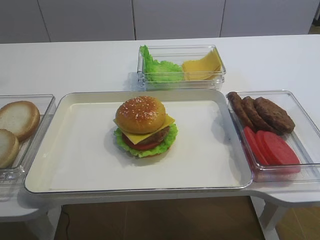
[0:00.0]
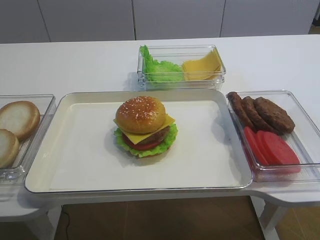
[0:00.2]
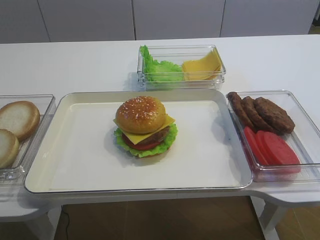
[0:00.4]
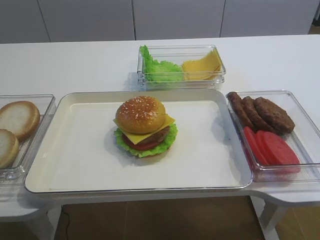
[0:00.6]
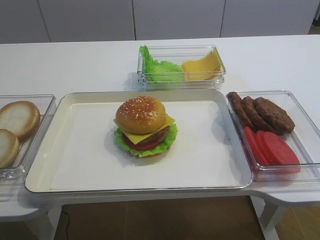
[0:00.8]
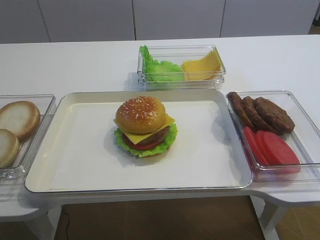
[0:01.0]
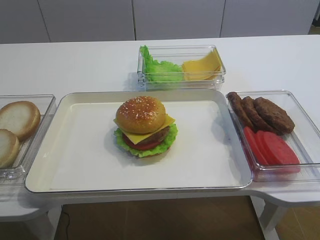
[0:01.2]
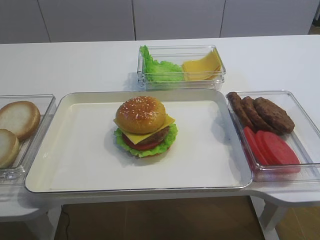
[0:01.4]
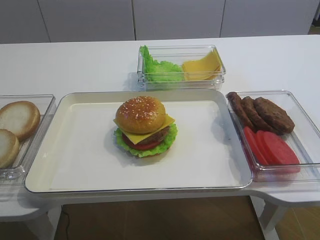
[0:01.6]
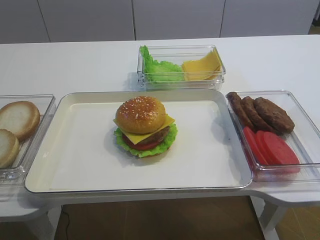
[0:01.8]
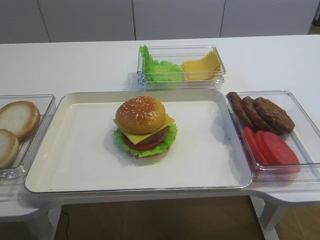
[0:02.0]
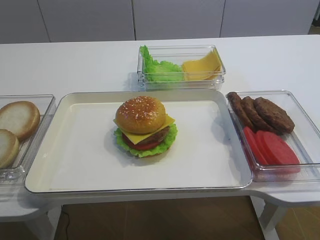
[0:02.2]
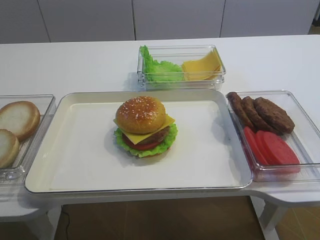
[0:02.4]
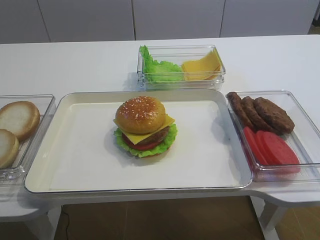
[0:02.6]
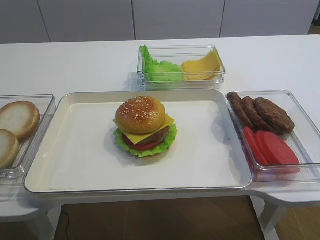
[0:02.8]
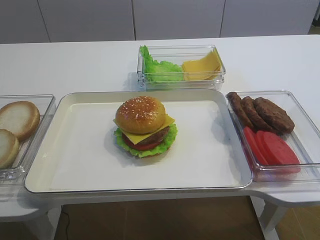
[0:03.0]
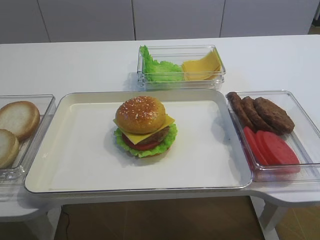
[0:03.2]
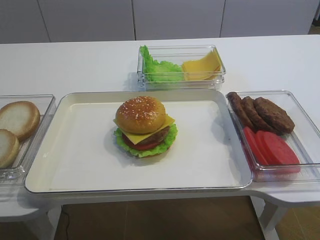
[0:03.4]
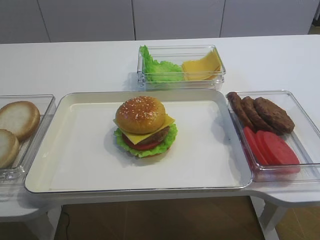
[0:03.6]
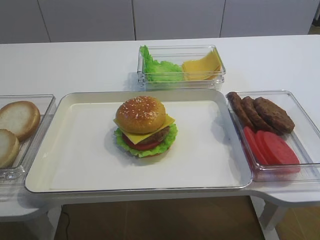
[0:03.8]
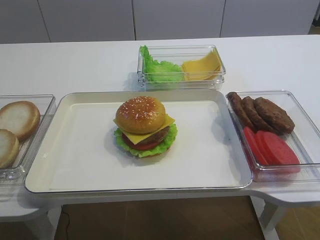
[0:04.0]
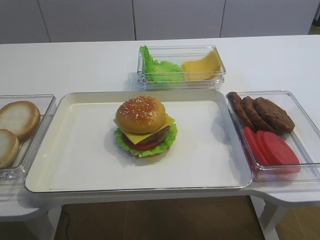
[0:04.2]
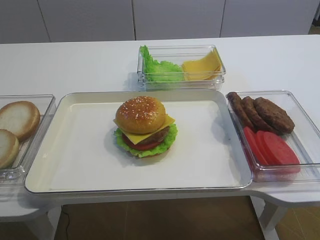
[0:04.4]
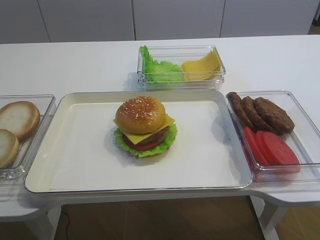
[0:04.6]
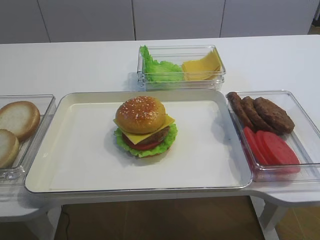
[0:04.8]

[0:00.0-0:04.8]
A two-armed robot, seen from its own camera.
0:03.2 to 0:04.8: Both grippers stay put.

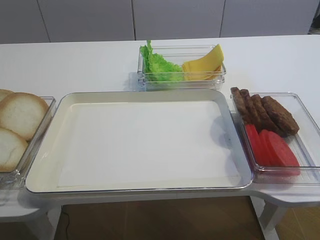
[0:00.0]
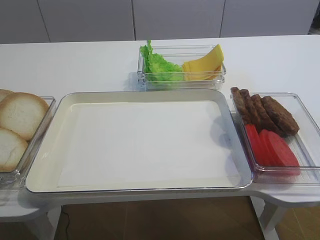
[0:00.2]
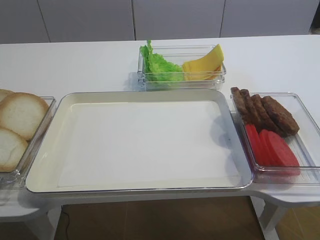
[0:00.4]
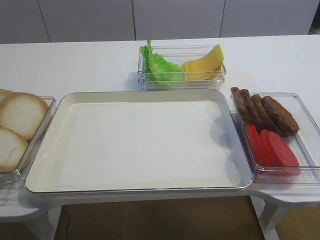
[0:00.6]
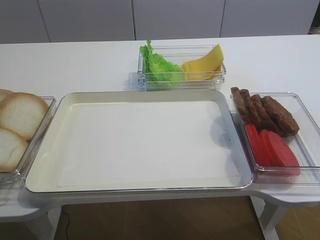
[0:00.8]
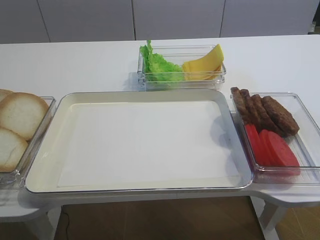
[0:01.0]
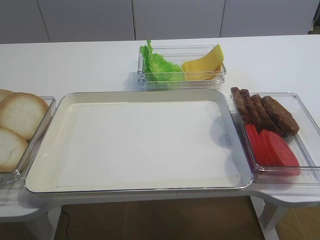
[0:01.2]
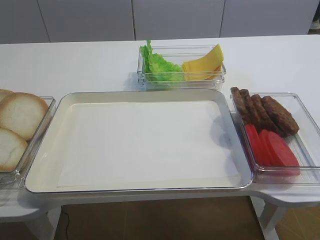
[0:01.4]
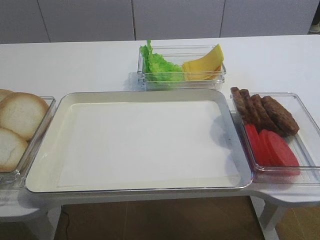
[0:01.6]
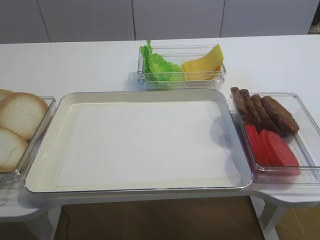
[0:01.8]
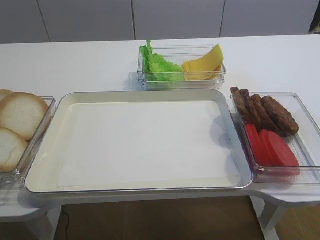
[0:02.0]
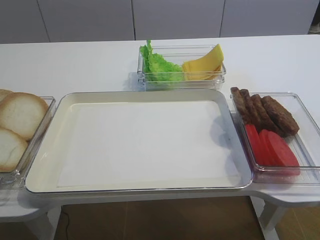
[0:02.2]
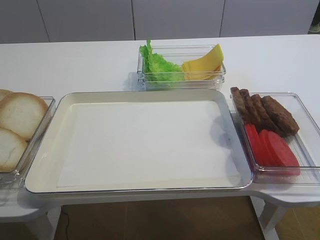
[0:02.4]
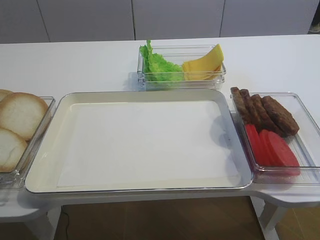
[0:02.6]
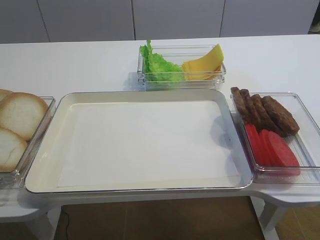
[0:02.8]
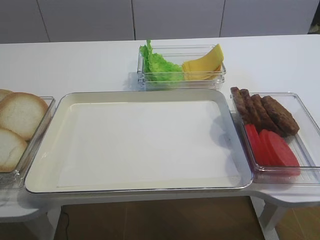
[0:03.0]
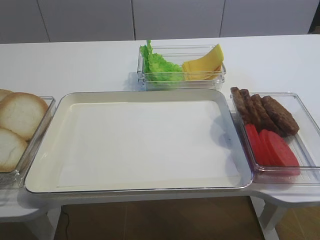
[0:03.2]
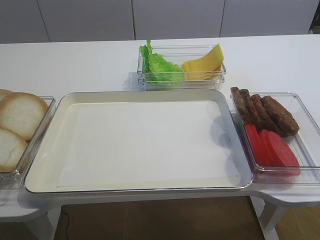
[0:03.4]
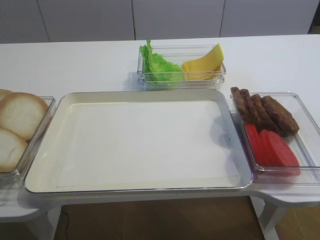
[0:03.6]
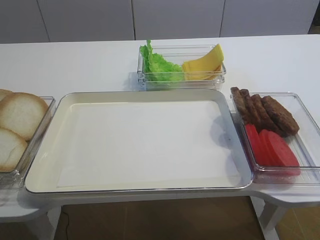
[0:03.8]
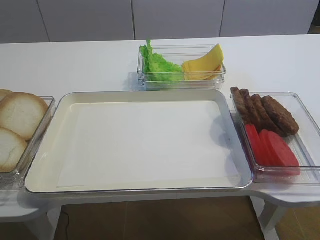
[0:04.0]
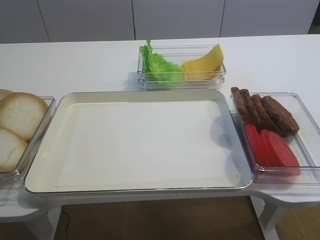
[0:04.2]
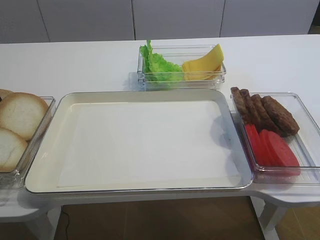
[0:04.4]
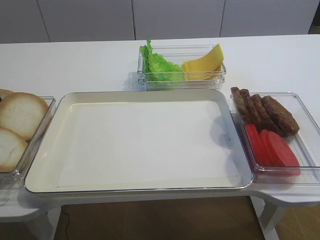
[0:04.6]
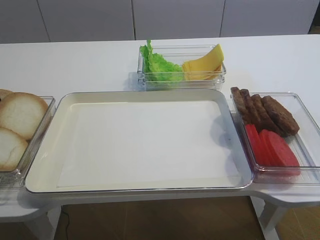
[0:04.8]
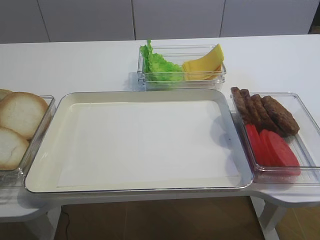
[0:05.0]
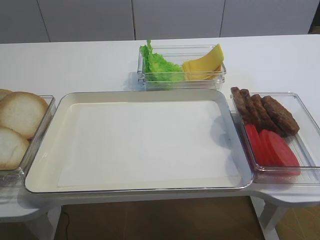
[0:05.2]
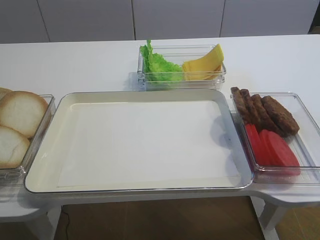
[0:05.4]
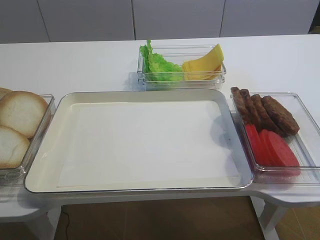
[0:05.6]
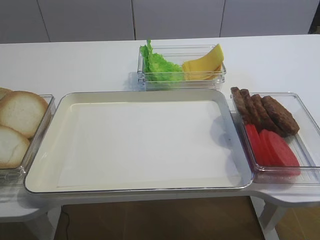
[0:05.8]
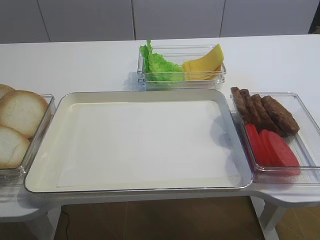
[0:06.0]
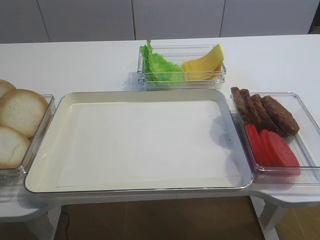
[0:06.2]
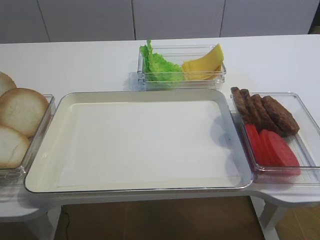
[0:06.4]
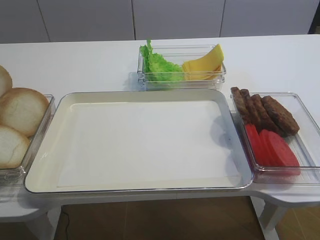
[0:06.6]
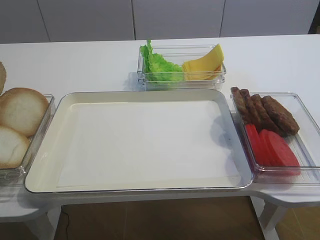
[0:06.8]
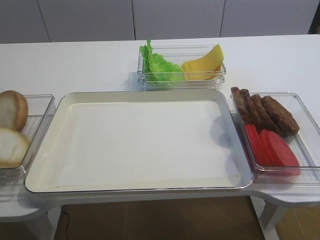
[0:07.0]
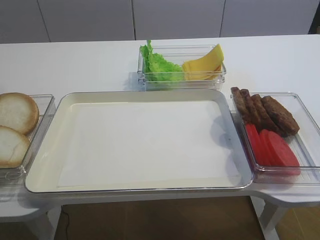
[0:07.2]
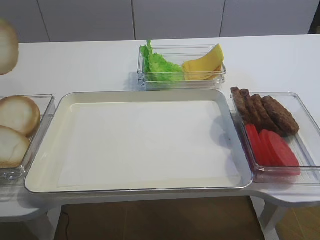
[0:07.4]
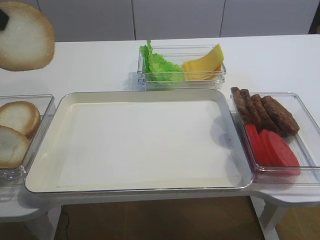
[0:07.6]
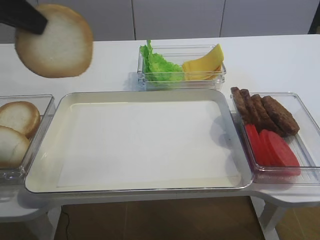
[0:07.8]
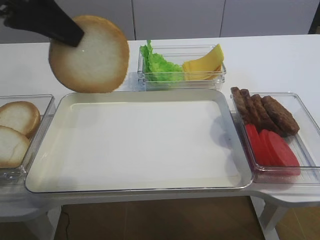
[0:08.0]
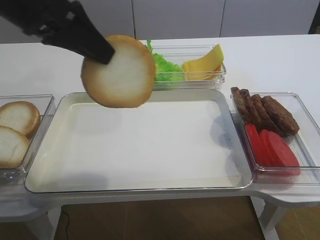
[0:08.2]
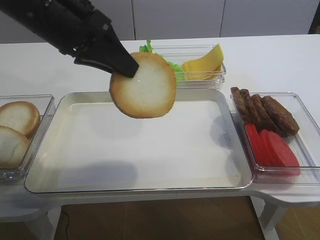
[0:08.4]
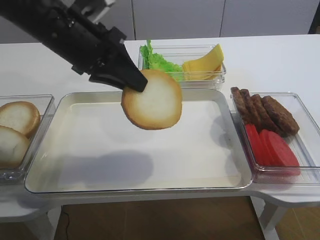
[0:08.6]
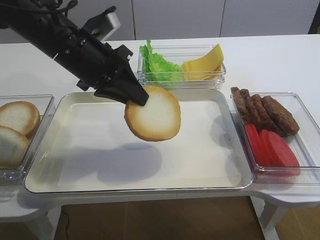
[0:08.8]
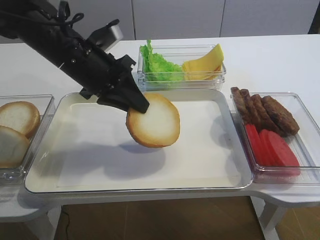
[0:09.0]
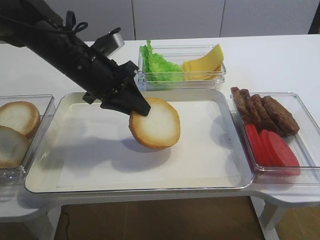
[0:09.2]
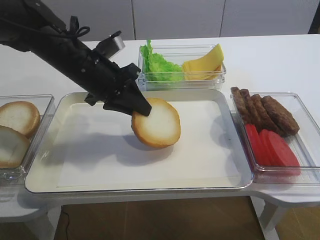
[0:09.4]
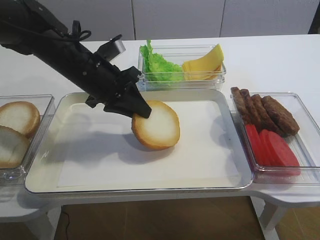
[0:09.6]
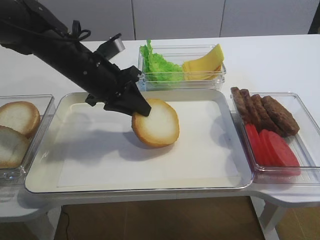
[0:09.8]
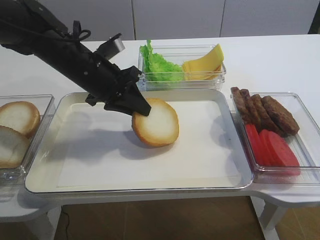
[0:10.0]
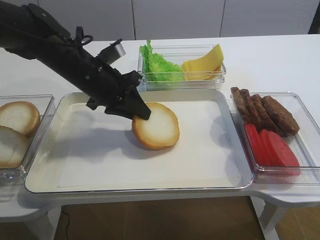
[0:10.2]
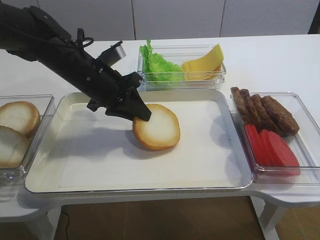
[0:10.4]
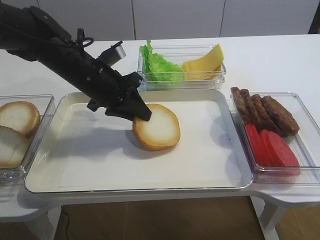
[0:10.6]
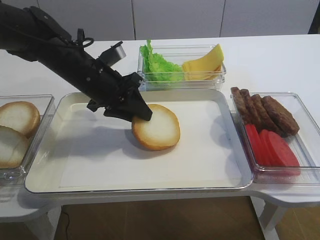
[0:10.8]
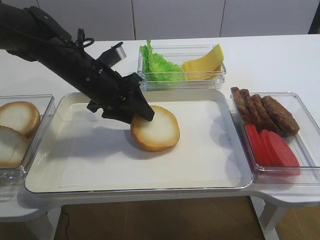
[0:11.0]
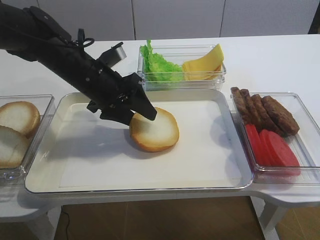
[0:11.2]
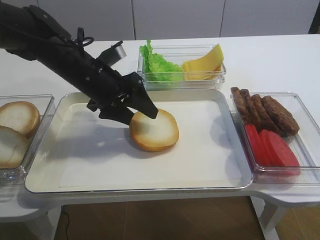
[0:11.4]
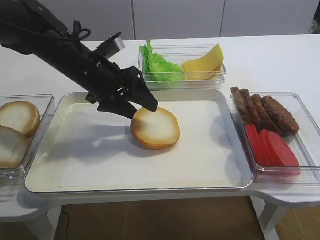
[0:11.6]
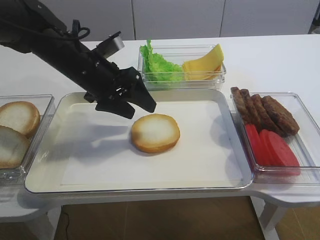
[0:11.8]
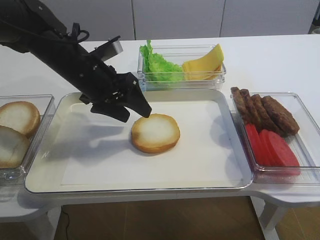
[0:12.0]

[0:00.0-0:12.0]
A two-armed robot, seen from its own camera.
Step, 0:00.0 to 0:07.4: Pick up the bread slice with the left gripper.
Step, 0:07.8 to 0:11.8: Place the bread slice on the tray with the left gripper.
0:04.4 to 0:06.0: The left gripper closes its fingers.
0:06.0 to 0:07.6: The left gripper heads upward, backward and to the right, covering some 15 cm.
0:07.6 to 0:09.0: The left gripper shifts roughly 20 cm to the right, downward and forward.
0:09.0 to 0:10.4: The left gripper changes place by approximately 5 cm.
0:10.4 to 0:12.0: The left gripper opens up.

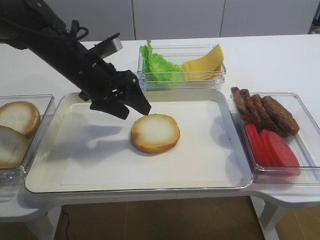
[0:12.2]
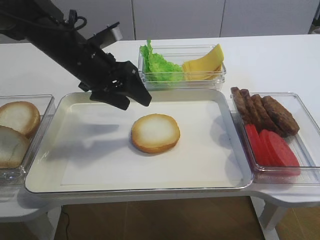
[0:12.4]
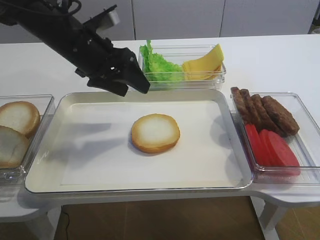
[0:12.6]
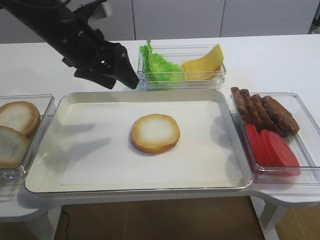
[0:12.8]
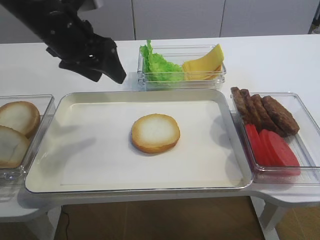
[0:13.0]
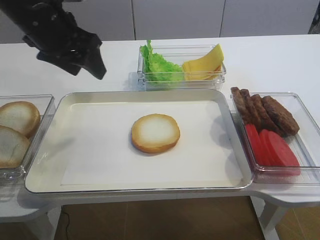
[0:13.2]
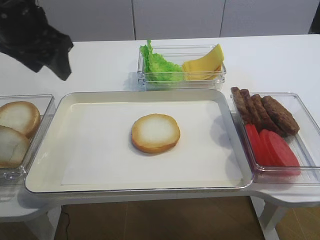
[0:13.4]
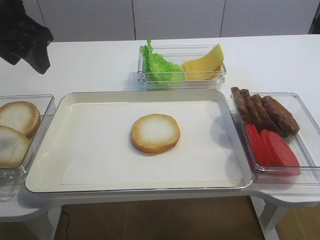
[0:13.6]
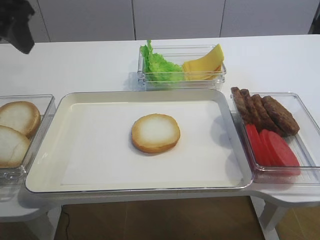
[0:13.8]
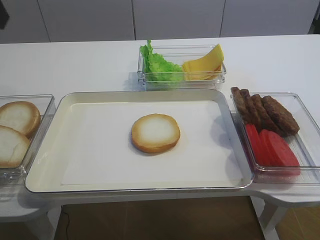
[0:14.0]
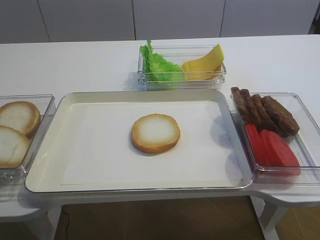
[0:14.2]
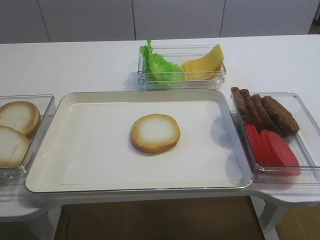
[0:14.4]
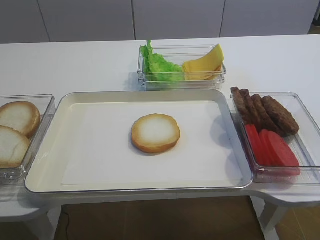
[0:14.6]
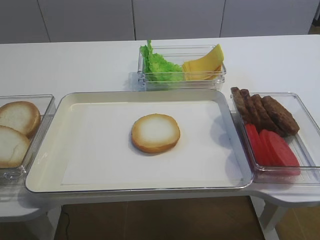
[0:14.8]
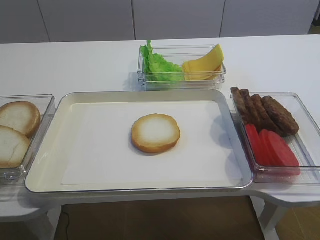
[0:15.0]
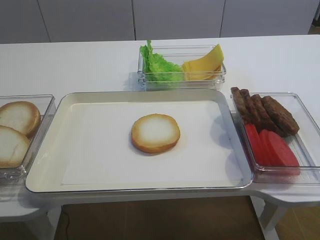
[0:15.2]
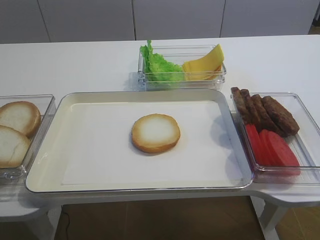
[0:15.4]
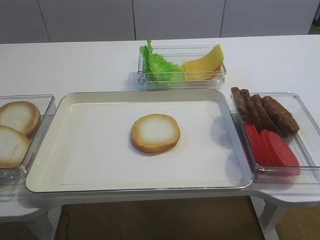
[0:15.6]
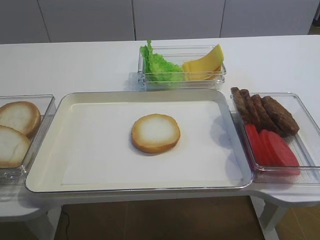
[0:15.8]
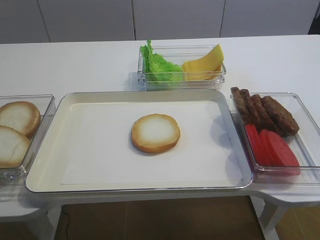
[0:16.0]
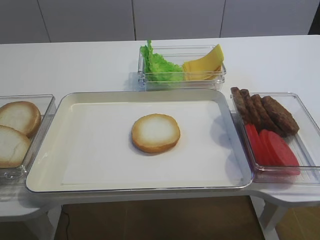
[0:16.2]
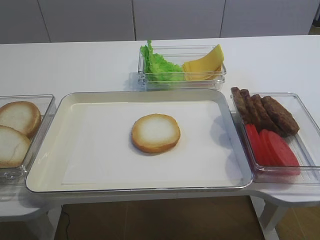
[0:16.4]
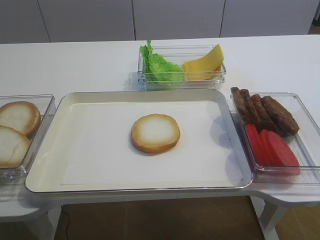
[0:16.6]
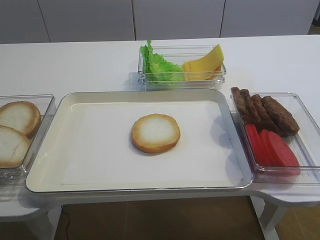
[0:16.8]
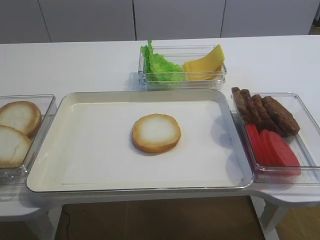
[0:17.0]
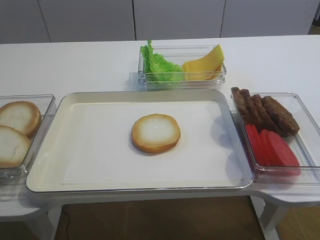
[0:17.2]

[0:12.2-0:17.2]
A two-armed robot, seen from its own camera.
0:12.2 to 0:13.8: The left gripper shifts approximately 20 cm upward, to the left and backward.
0:13.8 to 0:15.6: The left gripper moves backward, roughly 30 cm.
